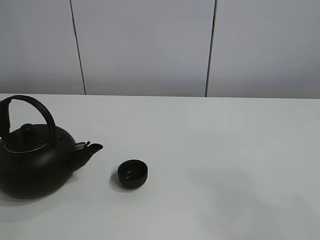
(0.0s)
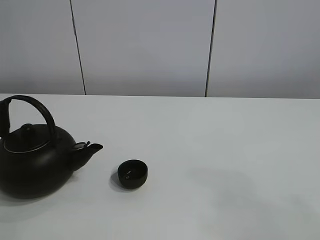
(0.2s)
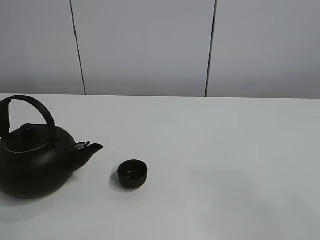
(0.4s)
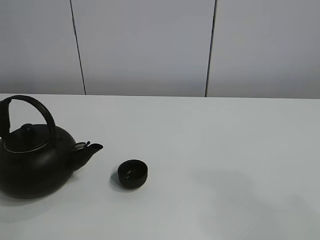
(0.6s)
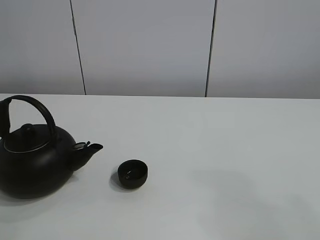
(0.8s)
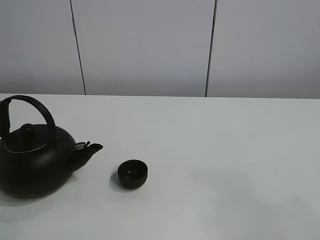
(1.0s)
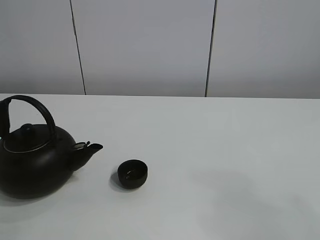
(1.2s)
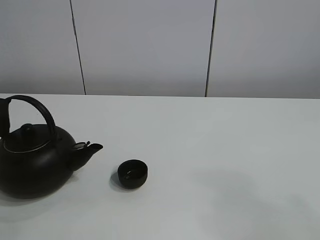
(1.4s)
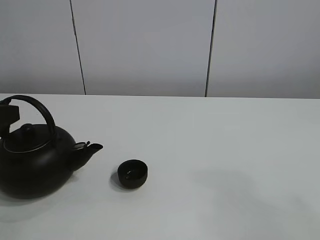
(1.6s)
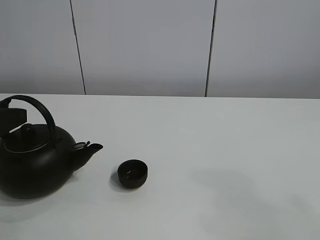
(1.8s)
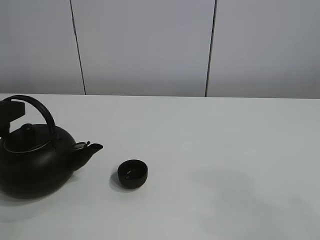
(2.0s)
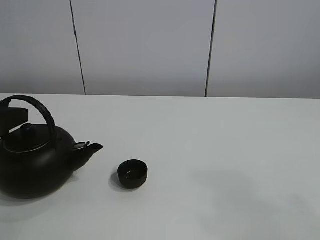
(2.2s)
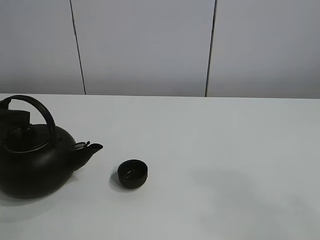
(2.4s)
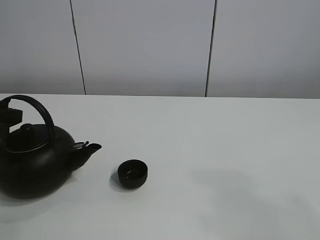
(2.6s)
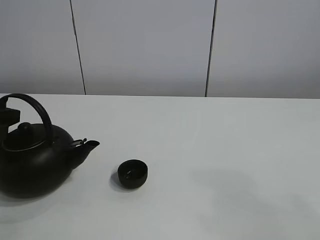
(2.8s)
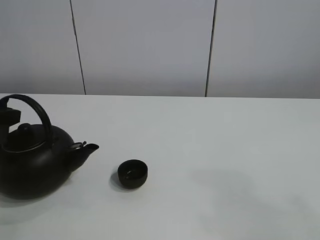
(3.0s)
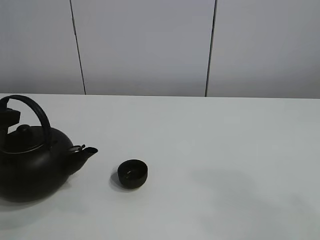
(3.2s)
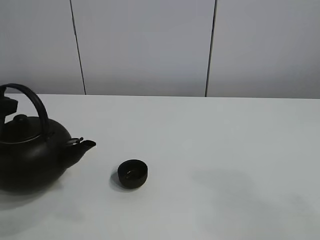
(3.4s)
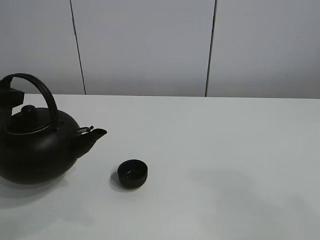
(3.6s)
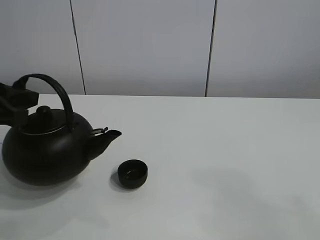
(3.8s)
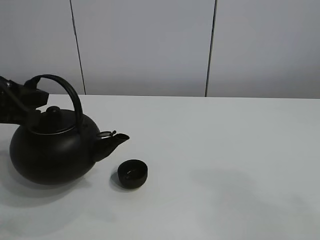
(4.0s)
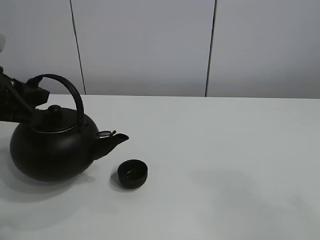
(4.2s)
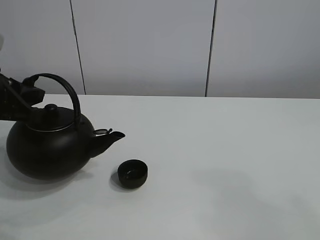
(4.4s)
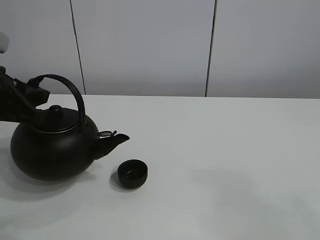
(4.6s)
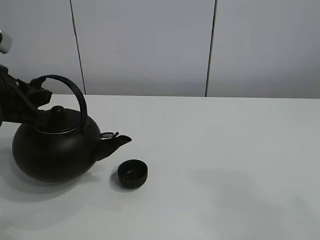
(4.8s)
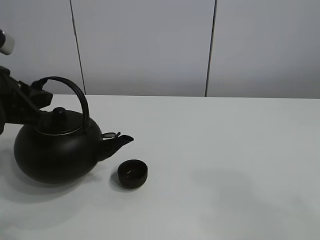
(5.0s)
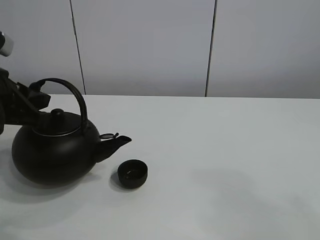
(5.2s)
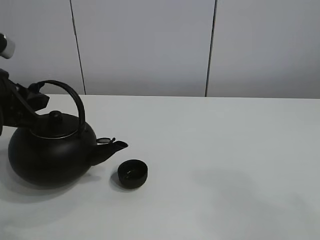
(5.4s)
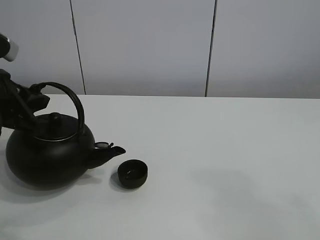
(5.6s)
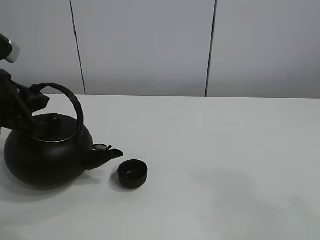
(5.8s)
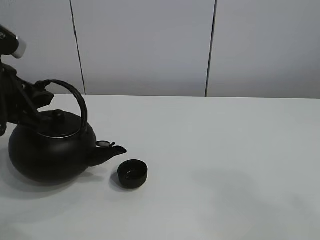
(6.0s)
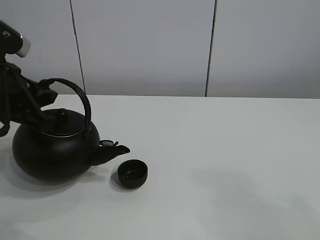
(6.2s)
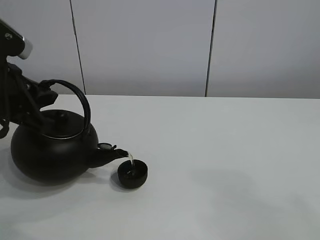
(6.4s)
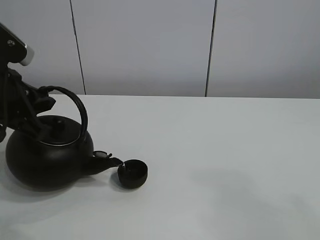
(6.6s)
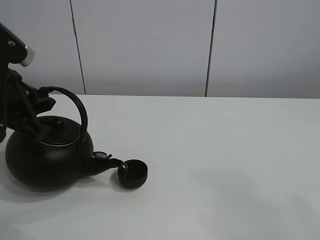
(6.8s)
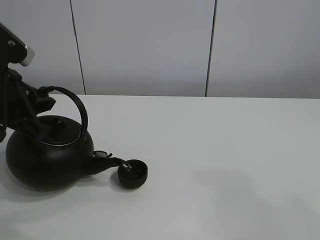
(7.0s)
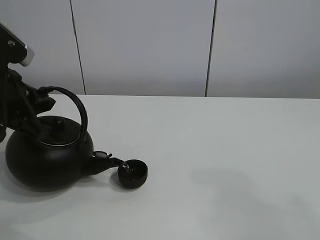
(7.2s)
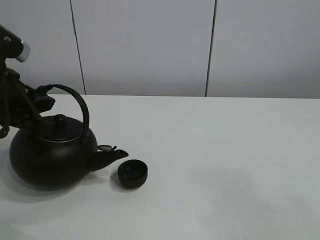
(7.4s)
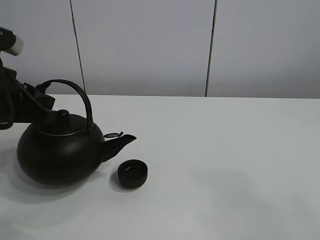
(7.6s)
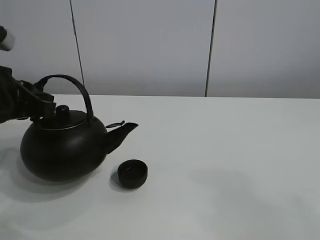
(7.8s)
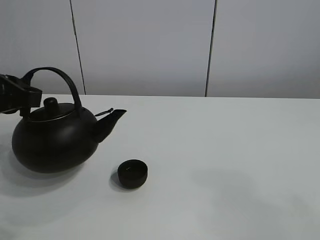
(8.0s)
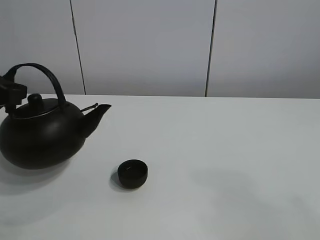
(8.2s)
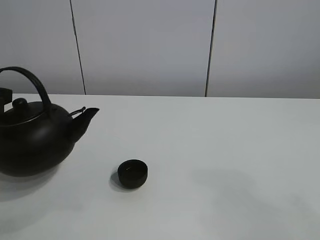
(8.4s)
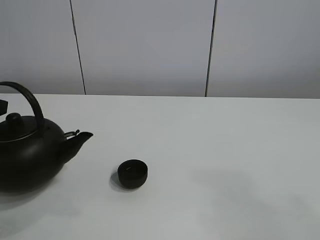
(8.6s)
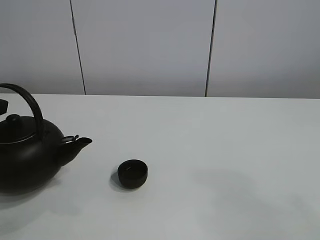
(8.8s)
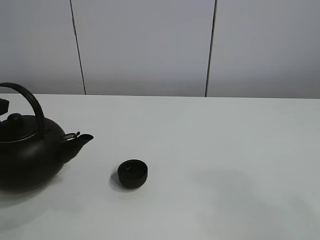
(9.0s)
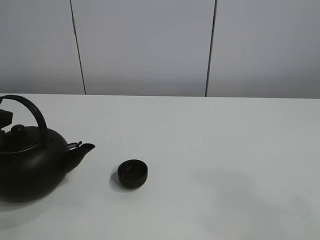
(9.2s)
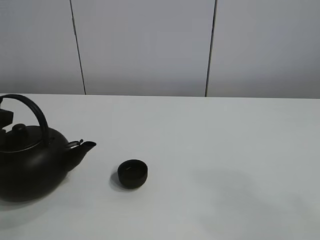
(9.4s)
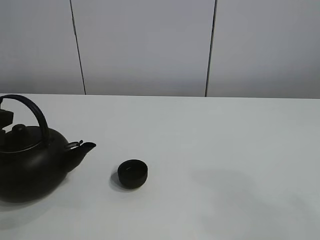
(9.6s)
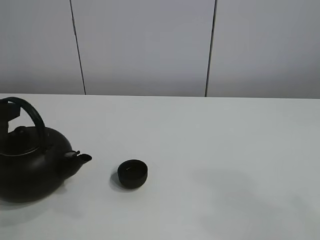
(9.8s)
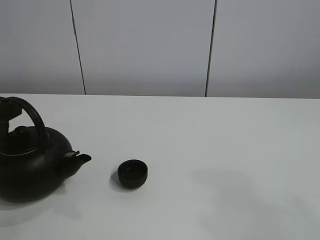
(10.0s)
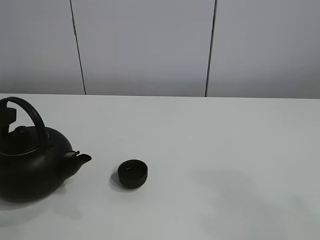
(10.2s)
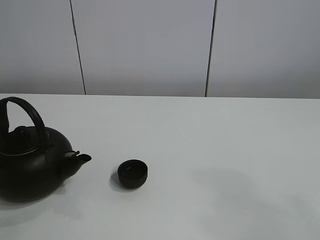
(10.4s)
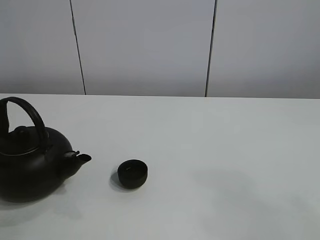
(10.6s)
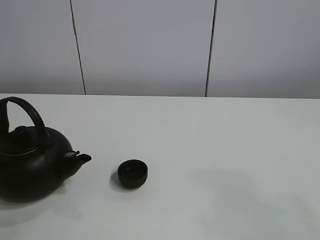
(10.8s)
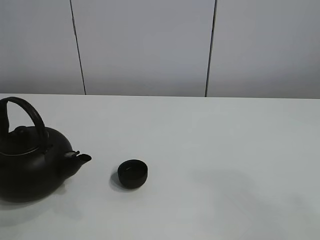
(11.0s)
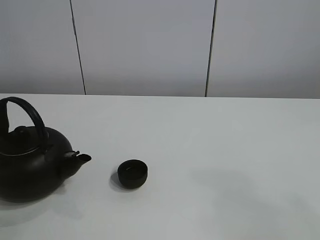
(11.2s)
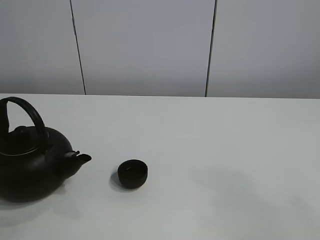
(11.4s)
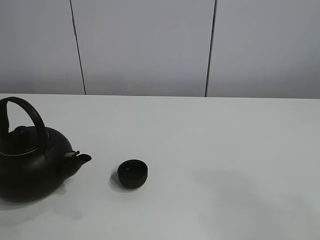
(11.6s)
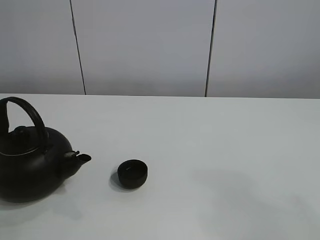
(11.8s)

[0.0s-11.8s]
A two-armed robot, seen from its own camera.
Task of the whole recording: pour tea into the teacup.
Step, 0.0s to 3.2s: Pick up the teapot with the left gripper.
Step, 3.4s to 7.4s: Pour tea into the teacup with the left gripper.
1.4s to 3.0s: The left gripper moves forward, about 5 cm, and closes.
3.0s to 4.4s: The left gripper heads to the right, covering some 5 cm.
4.4s to 7.4s: There are only small adjustments of the grippers.
7.4s to 8.8s: The left gripper moves to the left, roughly 5 cm.
8.8s to 10.4s: The left gripper opens up.

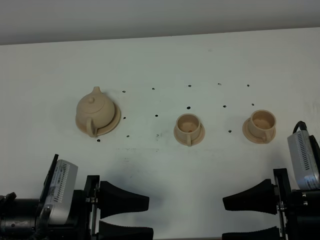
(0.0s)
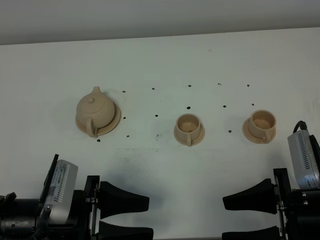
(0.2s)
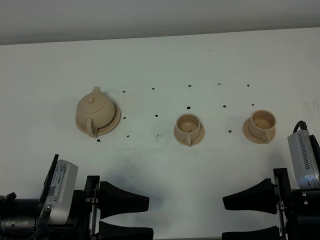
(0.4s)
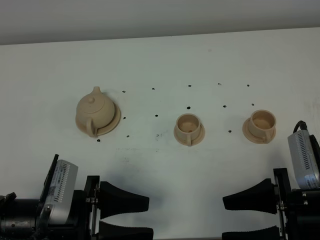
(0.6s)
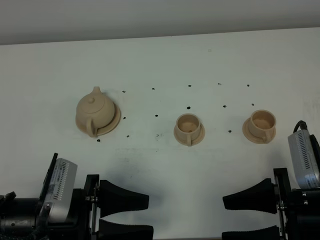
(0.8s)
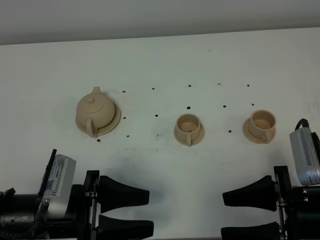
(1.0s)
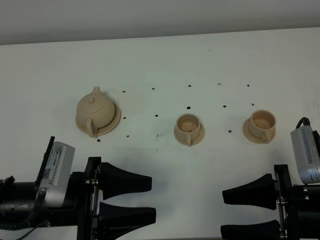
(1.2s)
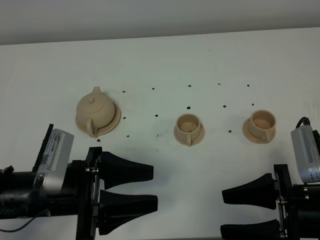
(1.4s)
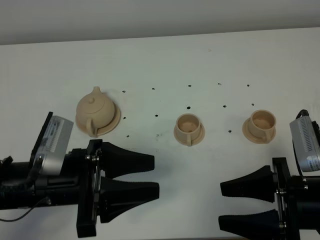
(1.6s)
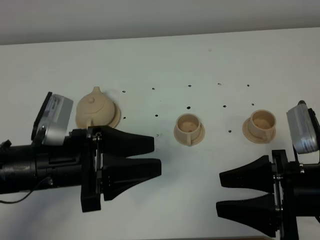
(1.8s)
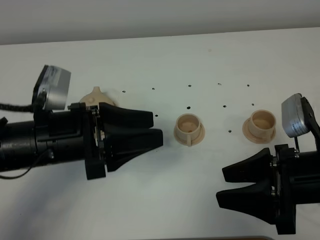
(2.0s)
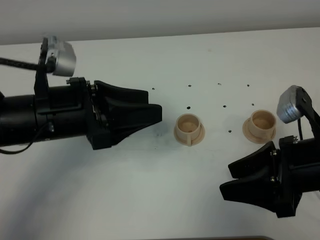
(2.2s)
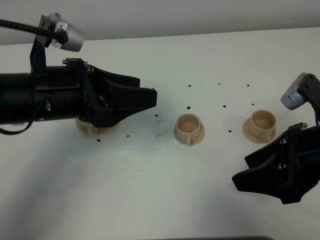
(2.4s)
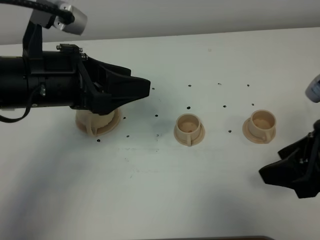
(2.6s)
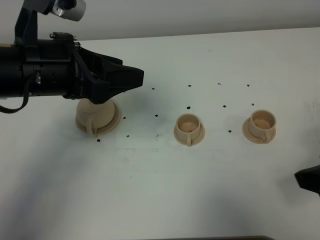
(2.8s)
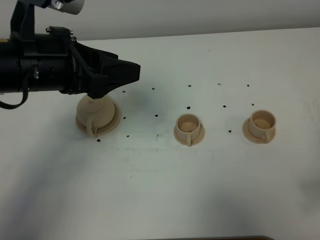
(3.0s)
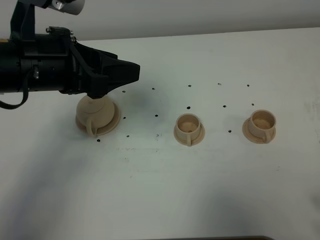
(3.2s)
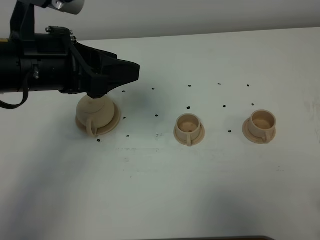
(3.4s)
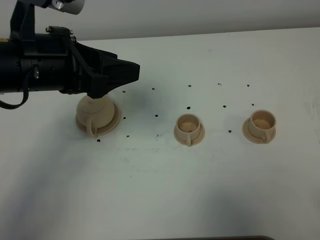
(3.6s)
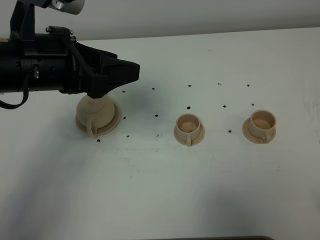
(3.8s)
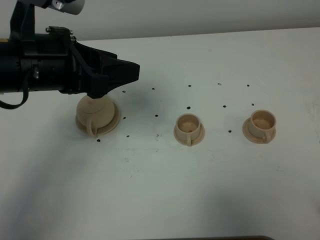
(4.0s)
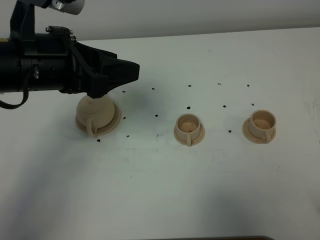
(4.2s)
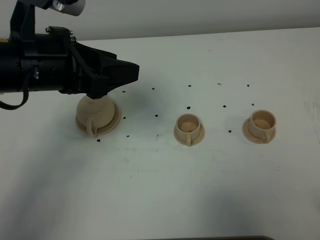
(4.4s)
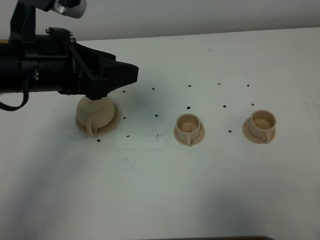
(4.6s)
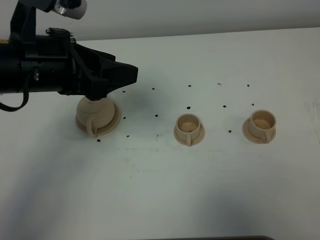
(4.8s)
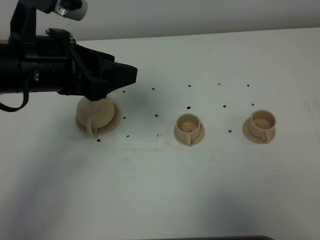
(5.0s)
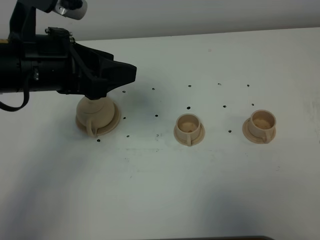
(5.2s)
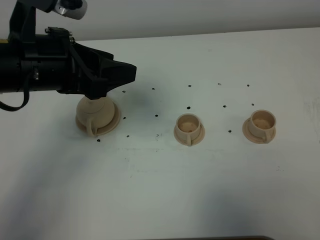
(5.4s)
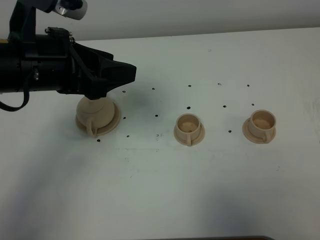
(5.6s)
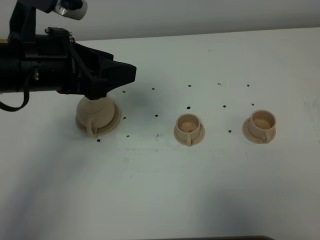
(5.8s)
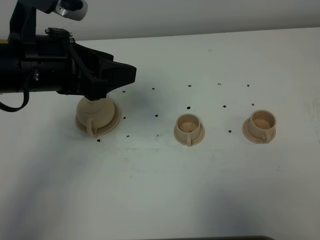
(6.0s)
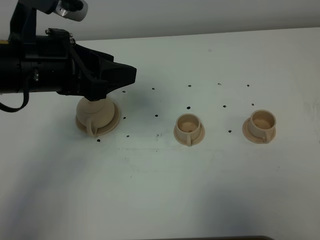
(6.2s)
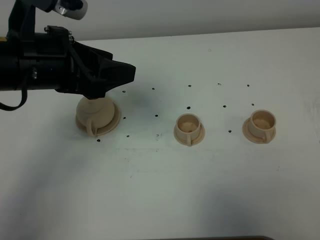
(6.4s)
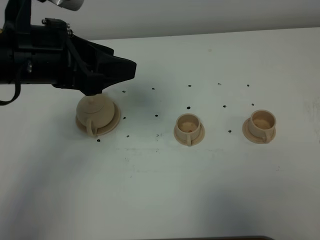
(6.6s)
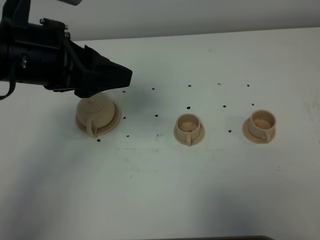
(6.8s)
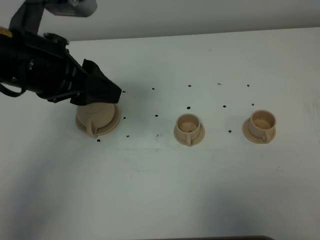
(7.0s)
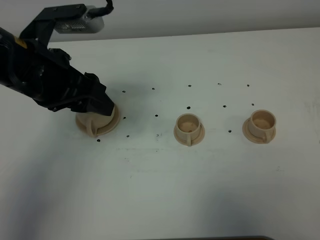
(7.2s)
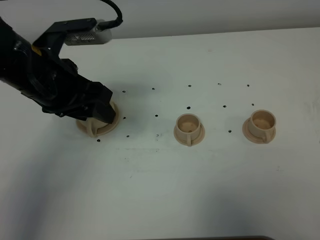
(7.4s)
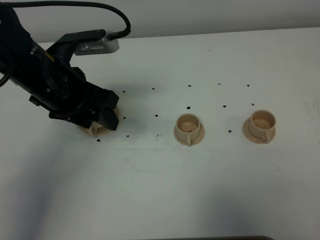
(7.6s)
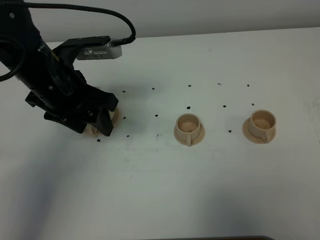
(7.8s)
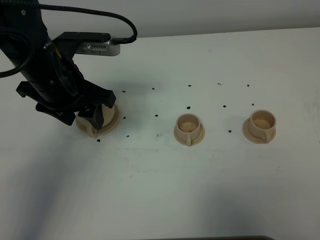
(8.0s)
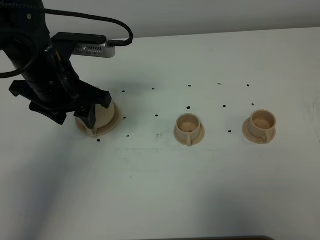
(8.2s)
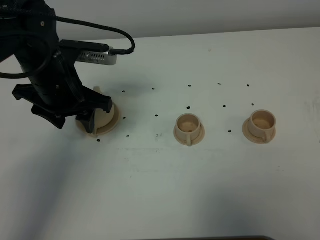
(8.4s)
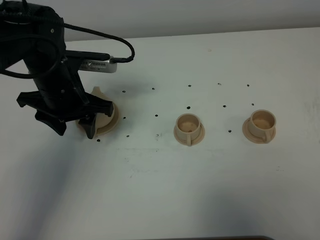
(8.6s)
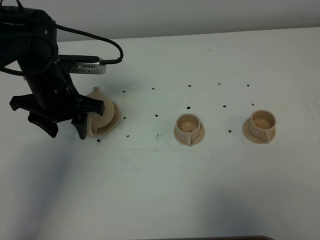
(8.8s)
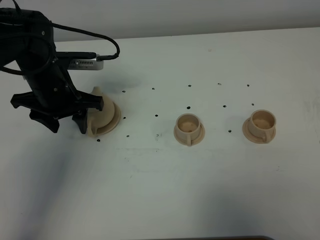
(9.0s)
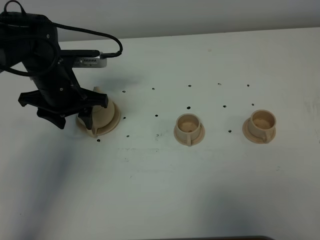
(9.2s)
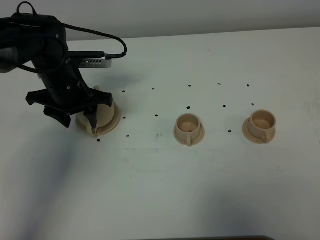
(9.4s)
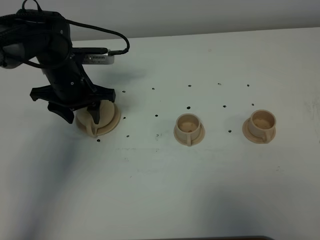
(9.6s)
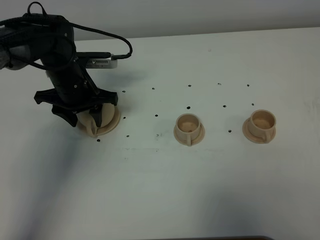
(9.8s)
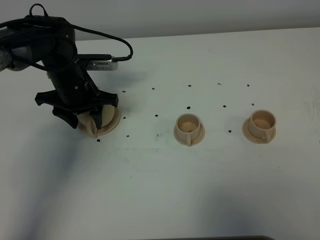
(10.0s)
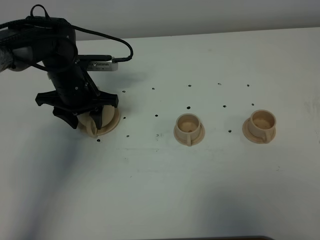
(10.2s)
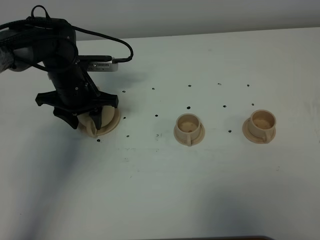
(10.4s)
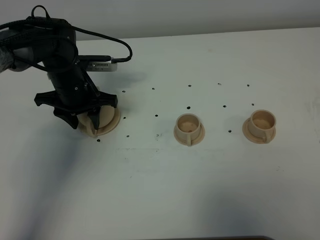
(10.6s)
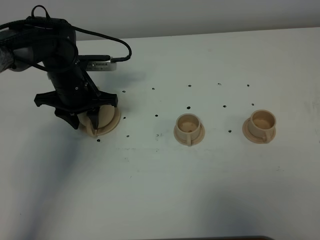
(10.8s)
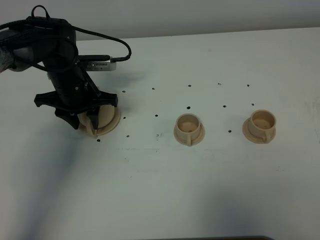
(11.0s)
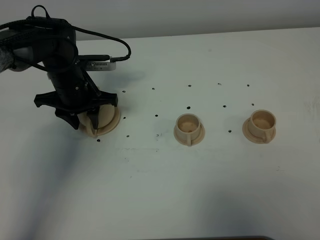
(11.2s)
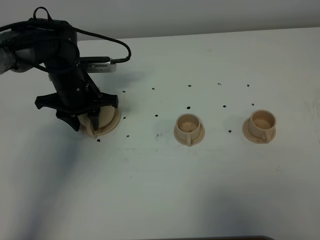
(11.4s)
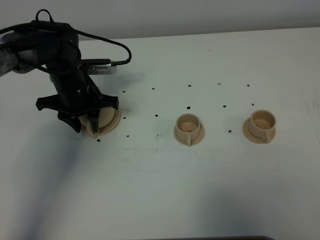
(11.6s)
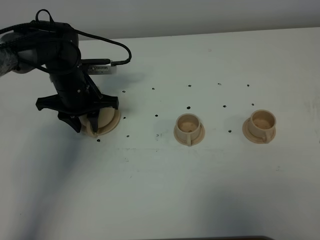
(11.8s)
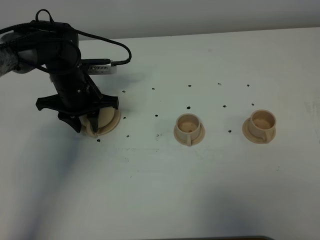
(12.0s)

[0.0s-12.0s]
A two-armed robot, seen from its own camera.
Task of the whole recording: grasp the brown teapot and pour the tea into the two brown teacups one by one, put the brown teapot back in its original place.
0.0s to 1.6s: The left gripper changes place by approximately 5 cm.
1.6s to 3.0s: The right gripper goes approximately 15 cm upward and to the right, while the left gripper heads upward and forward, covering roughly 15 cm.
6.0s to 7.6s: The left gripper heads downward, covering approximately 5 cm.
7.6s to 9.0s: The left gripper is displaced downward and forward by approximately 10 cm.
9.0s to 10.4s: The left gripper shifts by some 5 cm.
10.4s to 12.0s: The two grippers keep their place.
